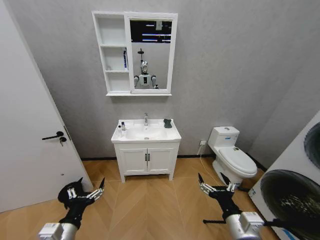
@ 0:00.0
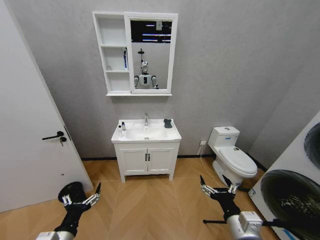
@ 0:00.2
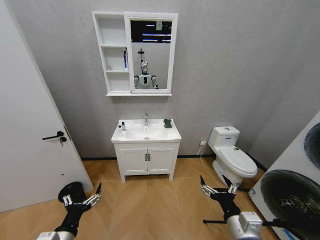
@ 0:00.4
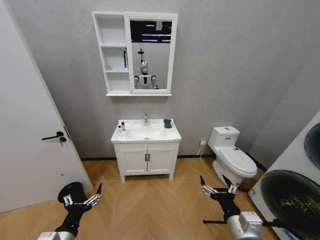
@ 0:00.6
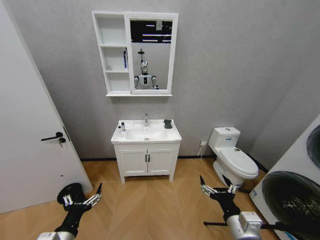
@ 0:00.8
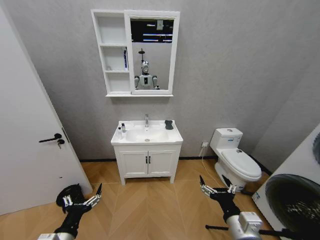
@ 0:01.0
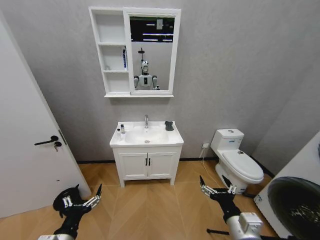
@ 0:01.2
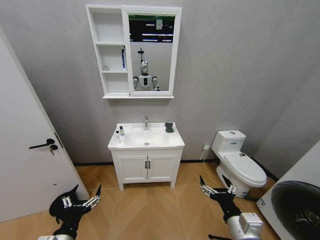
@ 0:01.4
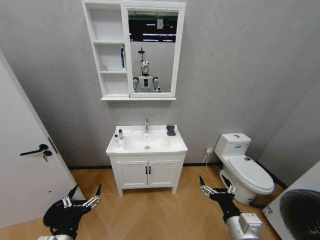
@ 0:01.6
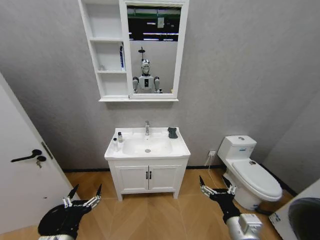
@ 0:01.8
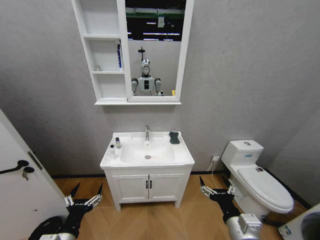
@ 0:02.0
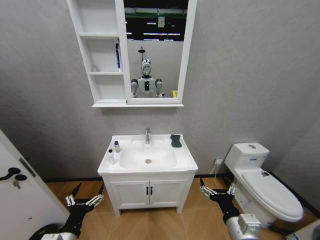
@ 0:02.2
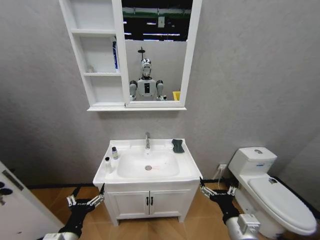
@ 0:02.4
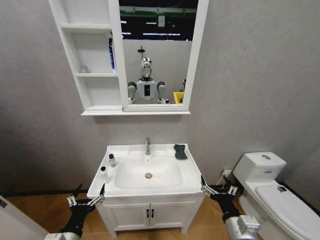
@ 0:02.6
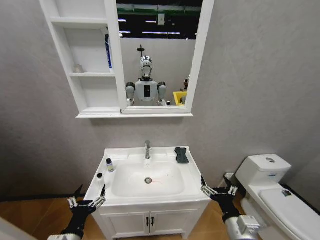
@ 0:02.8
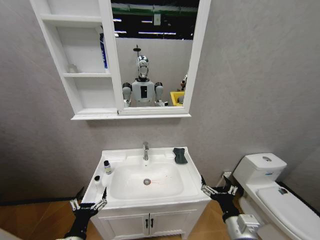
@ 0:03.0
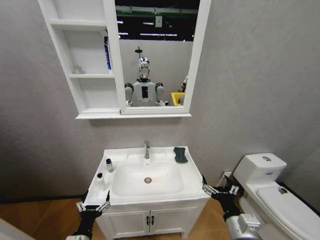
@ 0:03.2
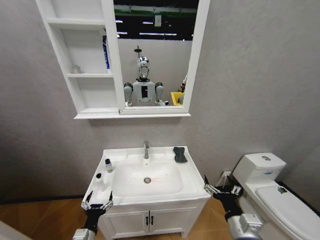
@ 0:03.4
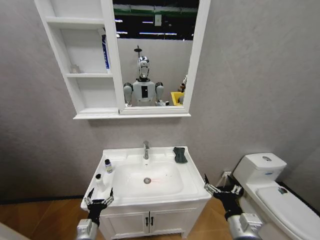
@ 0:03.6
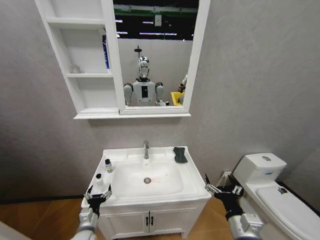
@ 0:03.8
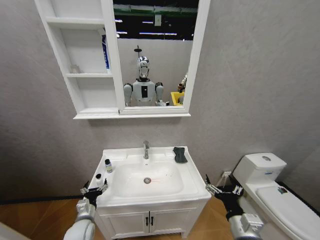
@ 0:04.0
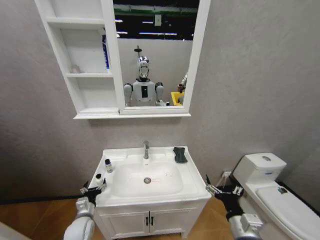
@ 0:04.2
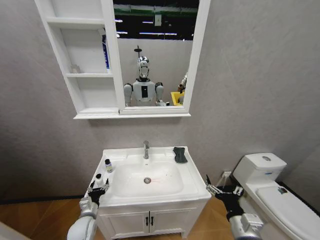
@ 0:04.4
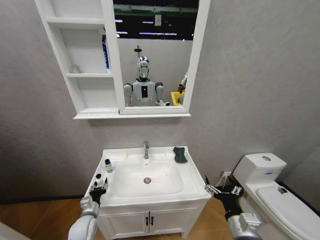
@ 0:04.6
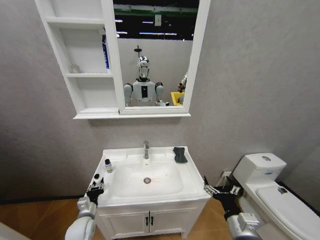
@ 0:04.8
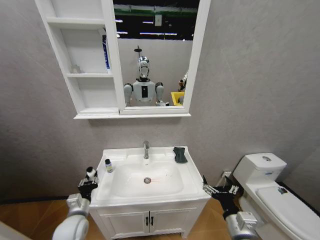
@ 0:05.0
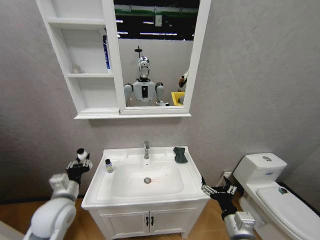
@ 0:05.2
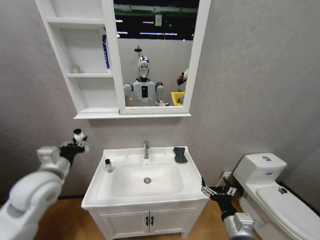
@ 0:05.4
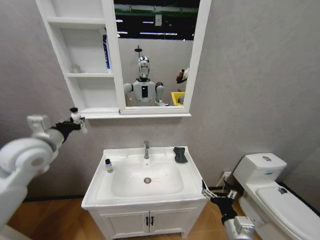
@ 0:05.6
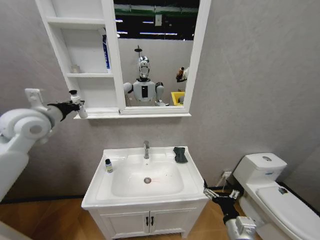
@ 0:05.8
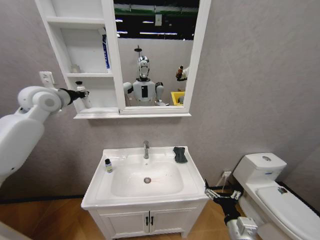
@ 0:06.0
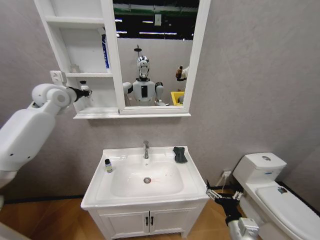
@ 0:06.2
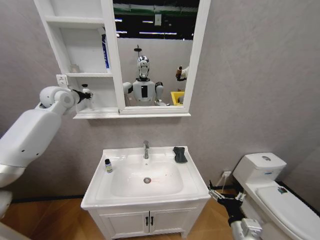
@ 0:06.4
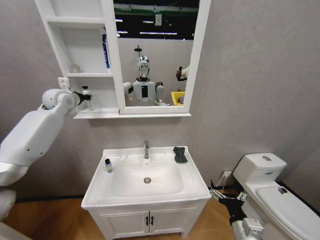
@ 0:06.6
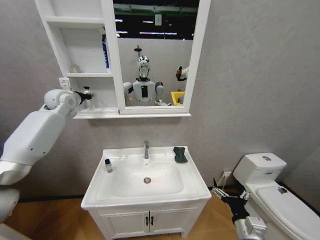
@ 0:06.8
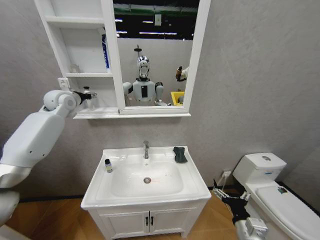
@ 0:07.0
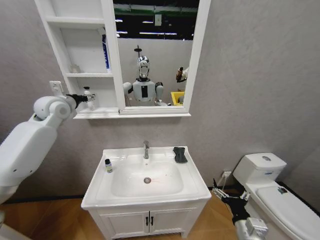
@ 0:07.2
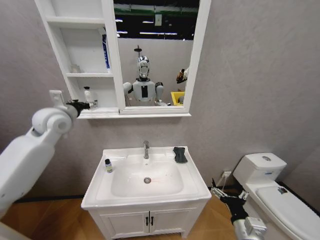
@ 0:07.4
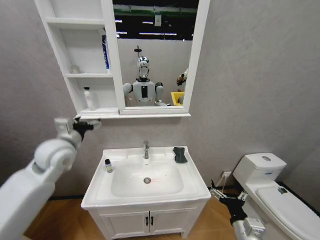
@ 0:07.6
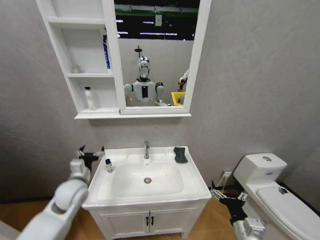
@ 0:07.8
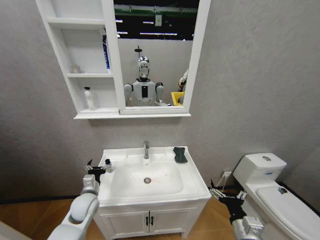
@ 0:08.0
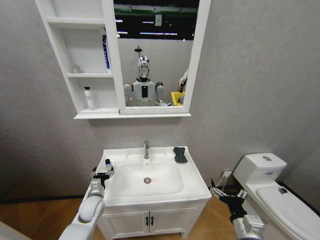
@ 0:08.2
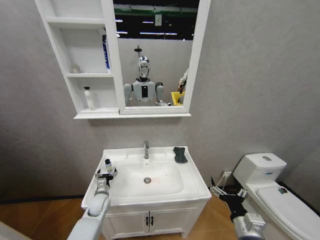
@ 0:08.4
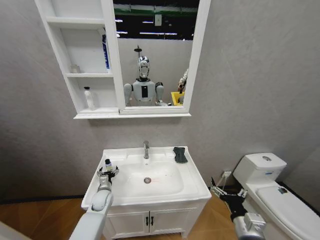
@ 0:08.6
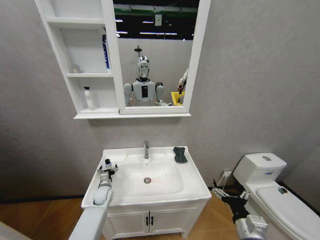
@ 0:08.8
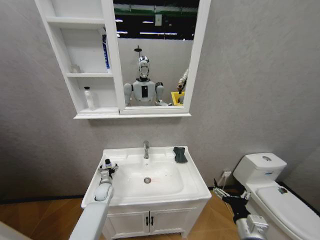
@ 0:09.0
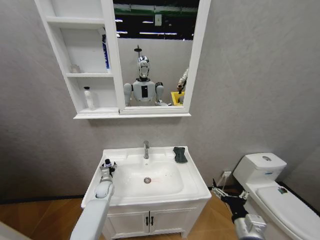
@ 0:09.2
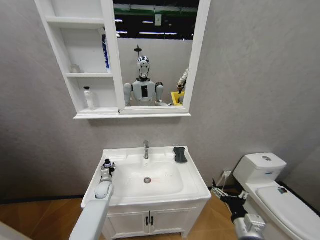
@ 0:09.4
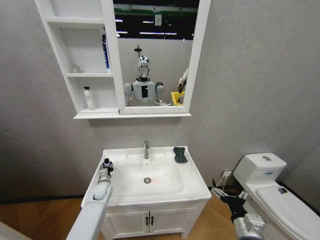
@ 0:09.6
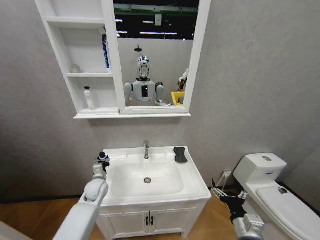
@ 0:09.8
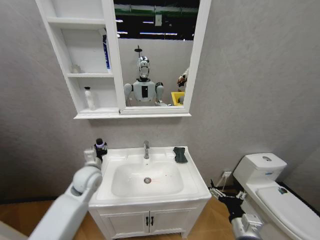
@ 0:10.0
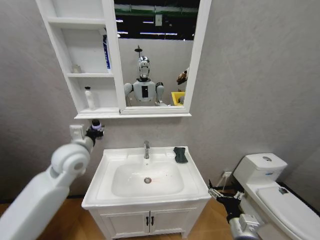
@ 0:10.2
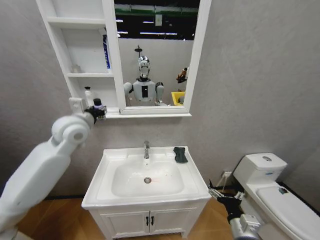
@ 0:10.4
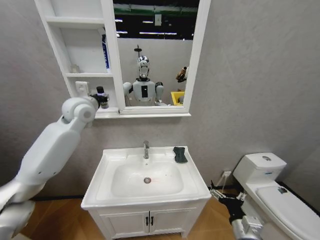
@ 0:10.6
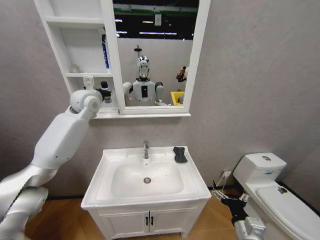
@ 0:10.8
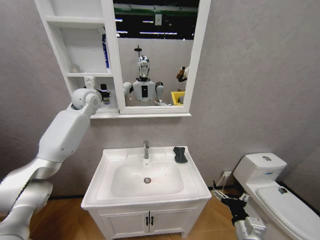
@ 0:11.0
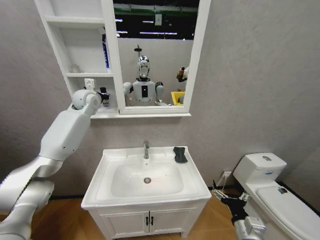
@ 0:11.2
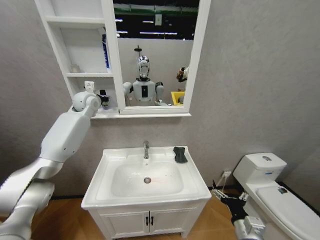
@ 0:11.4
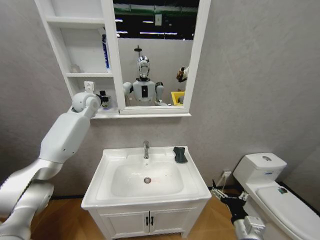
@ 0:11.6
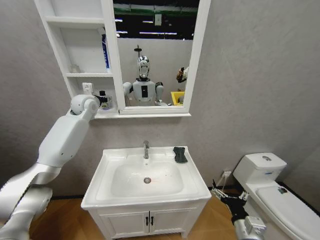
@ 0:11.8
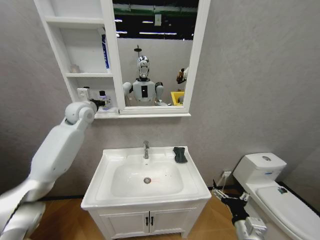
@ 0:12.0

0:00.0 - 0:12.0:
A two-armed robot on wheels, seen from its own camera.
Task of the whole recording: Move facial cleanser and shampoo from washbasin to cabinet, then wipe washbasin with towel.
0:03.0 - 0:04.4: The left gripper heads forward and downward, covering some 20 cm.
0:04.4 - 0:06.0: The left gripper moves upward, some 50 cm, and closes up.
0:06.0 - 0:07.6: The left gripper shifts approximately 20 cm downward and backward, and opens.
0:07.6 - 0:09.0: The left gripper shifts about 35 cm downward.
0:09.0 - 0:10.4: The left gripper travels upward by some 40 cm, and closes up.
0:10.4 - 0:12.0: The left gripper is displaced forward by roughly 10 cm, and opens up.

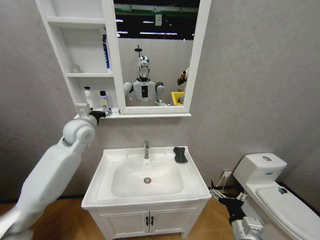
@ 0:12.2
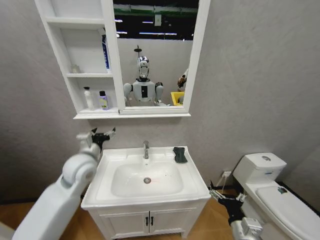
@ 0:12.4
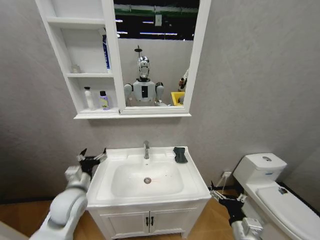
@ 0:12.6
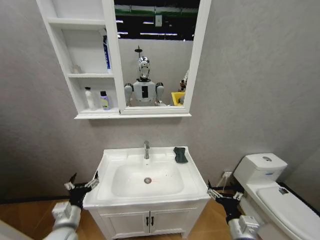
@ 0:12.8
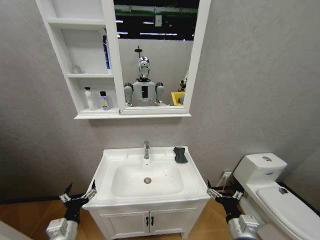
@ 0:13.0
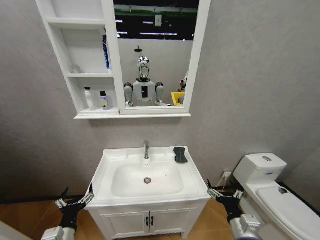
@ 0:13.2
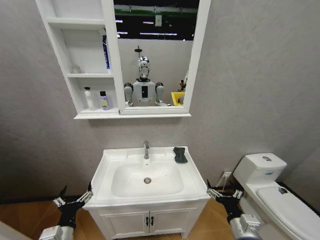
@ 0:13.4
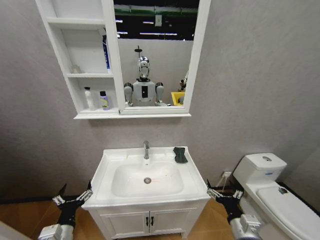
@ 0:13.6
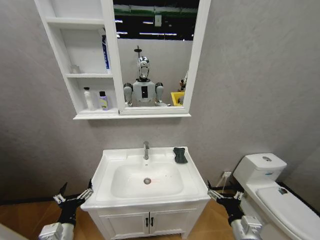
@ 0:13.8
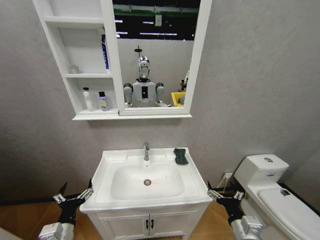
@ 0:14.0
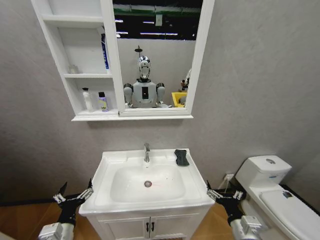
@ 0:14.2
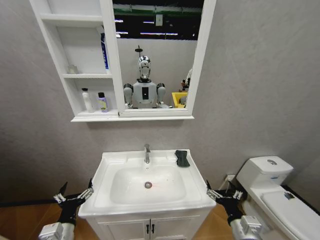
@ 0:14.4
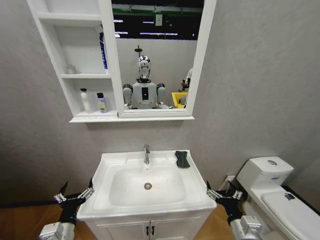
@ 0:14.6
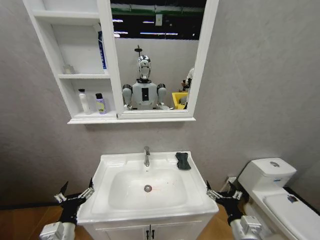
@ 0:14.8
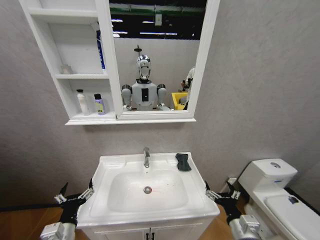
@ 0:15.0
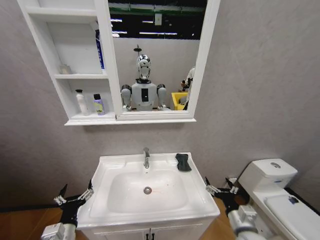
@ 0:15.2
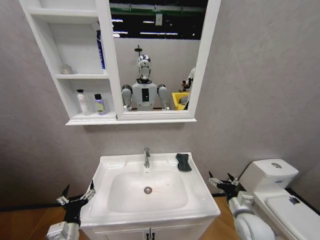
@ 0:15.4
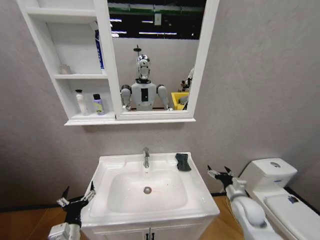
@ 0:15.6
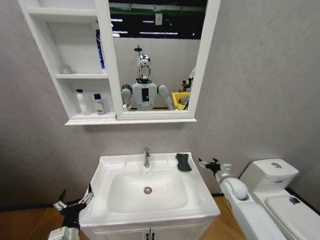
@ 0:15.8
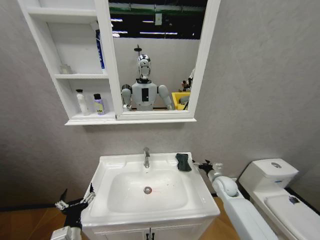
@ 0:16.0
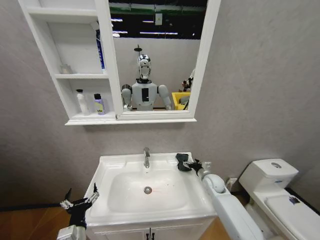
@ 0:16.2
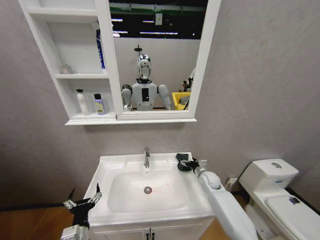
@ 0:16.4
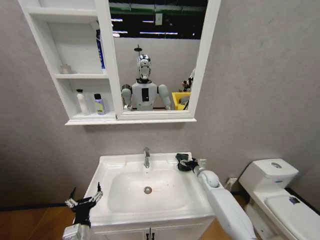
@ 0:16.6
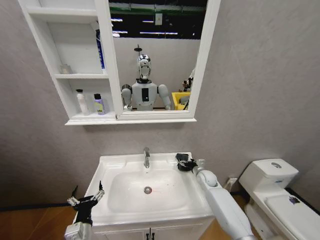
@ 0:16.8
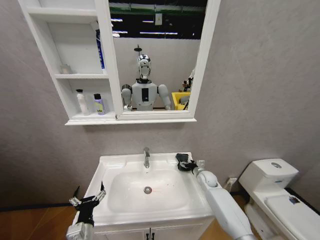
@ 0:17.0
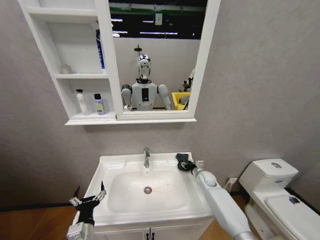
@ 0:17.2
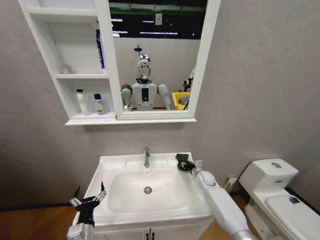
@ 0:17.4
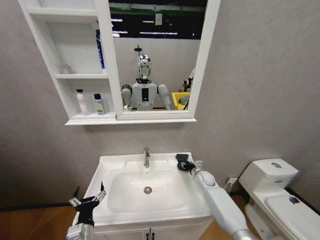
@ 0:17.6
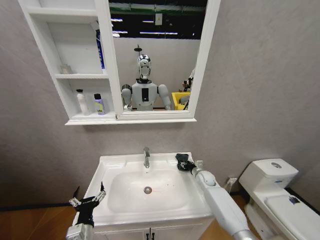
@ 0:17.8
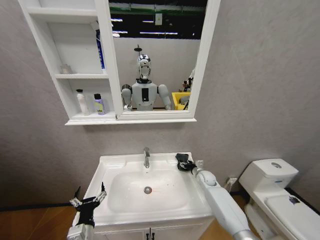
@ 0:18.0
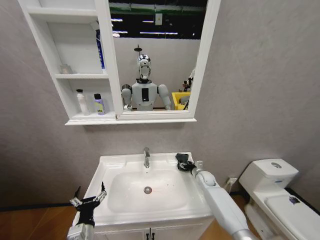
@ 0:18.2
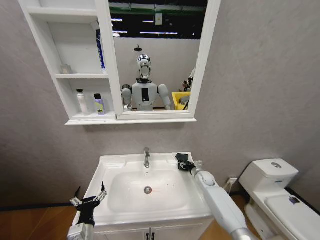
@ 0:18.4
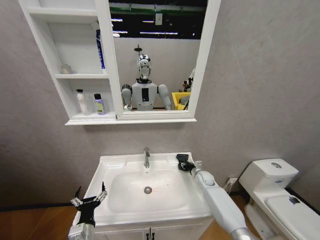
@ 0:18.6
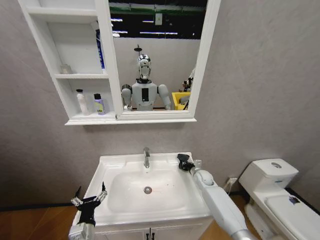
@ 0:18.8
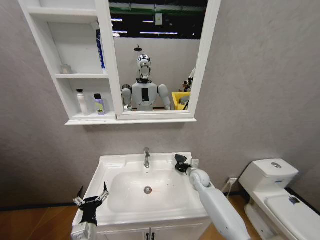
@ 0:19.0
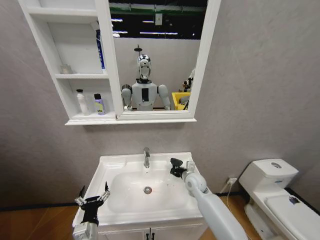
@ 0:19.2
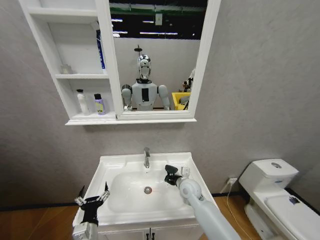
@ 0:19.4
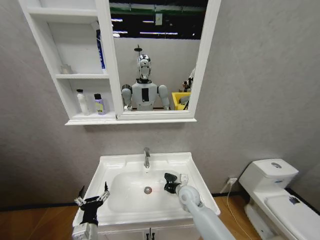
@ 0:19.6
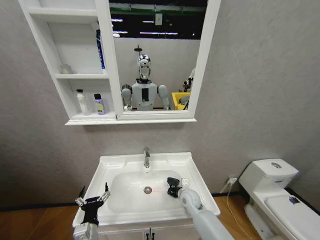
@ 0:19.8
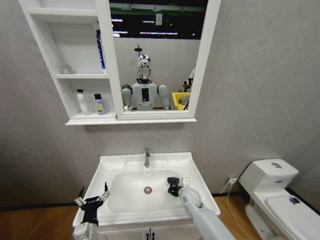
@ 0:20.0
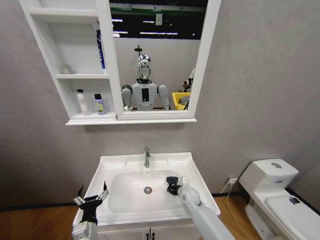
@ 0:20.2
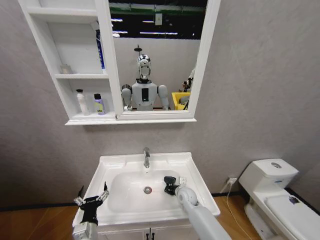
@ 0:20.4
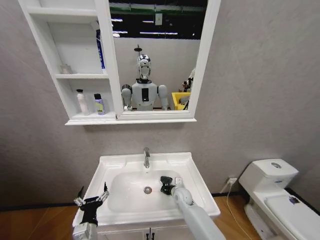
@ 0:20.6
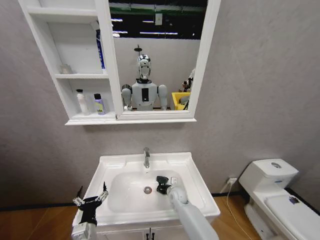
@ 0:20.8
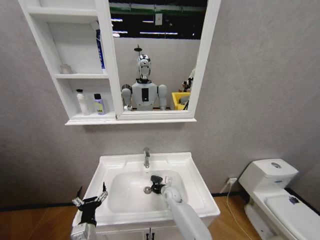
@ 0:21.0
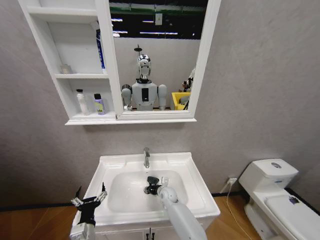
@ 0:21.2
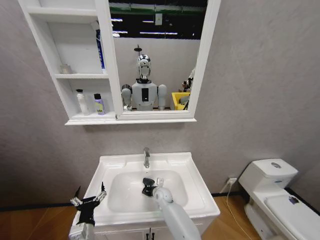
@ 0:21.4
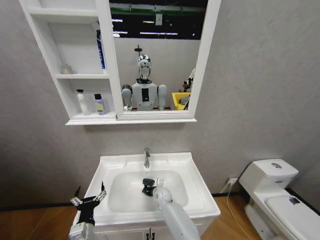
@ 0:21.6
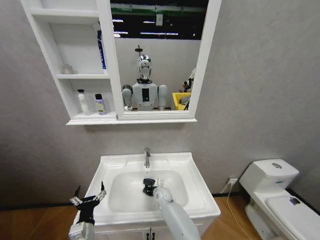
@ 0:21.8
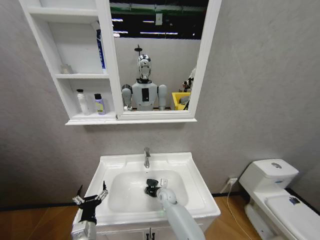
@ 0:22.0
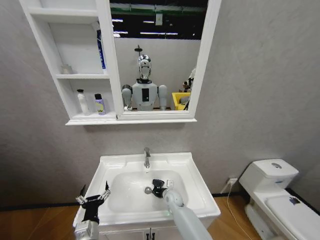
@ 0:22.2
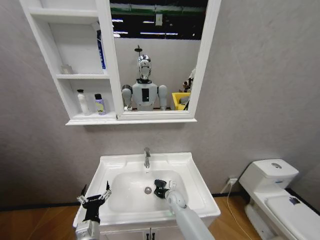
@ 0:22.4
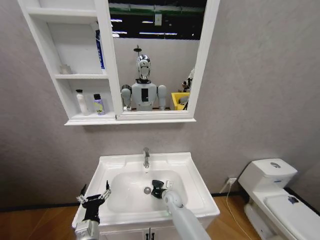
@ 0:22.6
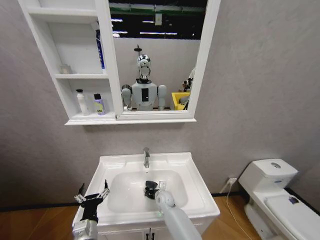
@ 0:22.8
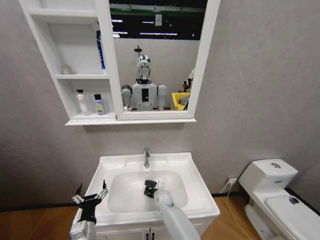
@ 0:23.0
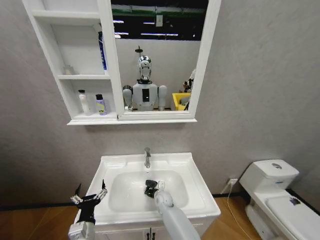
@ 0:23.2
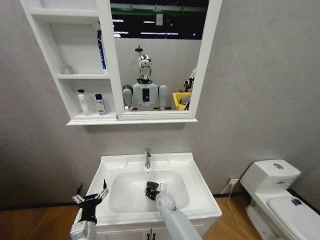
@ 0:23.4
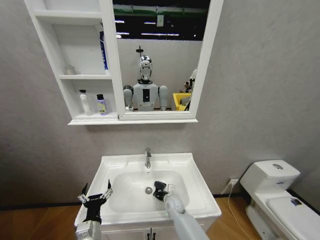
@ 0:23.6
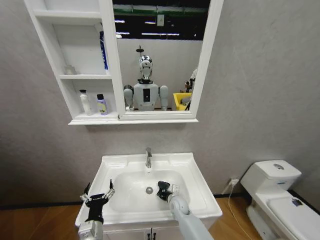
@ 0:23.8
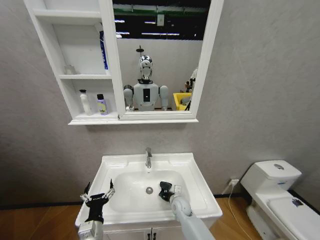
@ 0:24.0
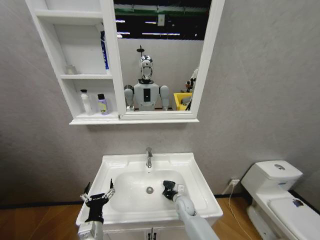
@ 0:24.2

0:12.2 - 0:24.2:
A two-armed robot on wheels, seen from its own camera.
Task of the whole recording: Move facial cleanser and shampoo from washbasin to cabinet, then wipe washbasin with towel.
0:12.2 - 0:13.8: The left gripper goes some 40 cm downward and backward.
0:15.2 - 0:16.6: The left gripper moves approximately 5 cm; the right gripper heads forward, covering about 30 cm.
0:16.6 - 0:18.2: The right gripper closes, then opens again.
0:18.2 - 0:19.8: The right gripper travels to the left and backward by approximately 15 cm, and closes its fingers.
0:19.8 - 0:21.2: The right gripper heads to the left, downward and forward, covering roughly 15 cm.
0:21.2 - 0:22.6: The grippers make only small movements.
0:22.6 - 0:24.2: The right gripper moves to the right, about 5 cm.
